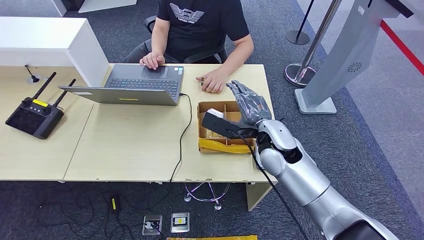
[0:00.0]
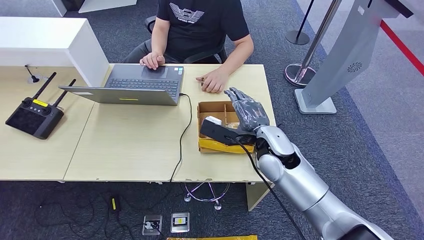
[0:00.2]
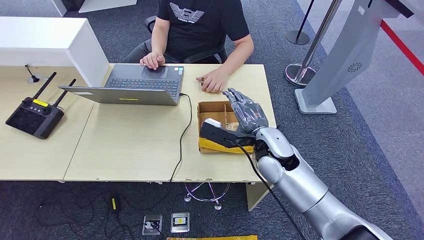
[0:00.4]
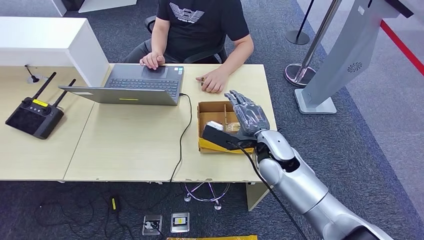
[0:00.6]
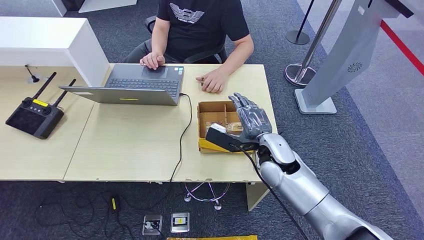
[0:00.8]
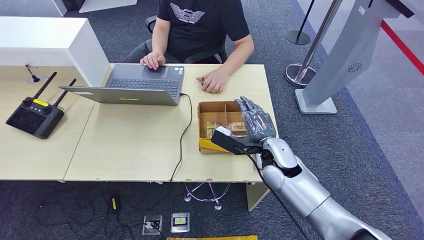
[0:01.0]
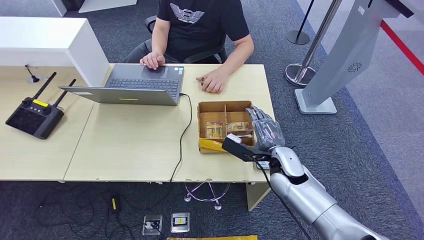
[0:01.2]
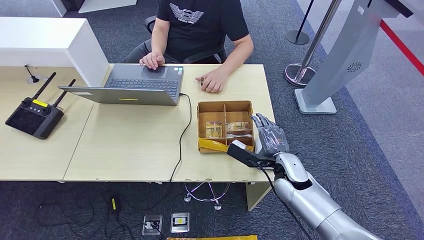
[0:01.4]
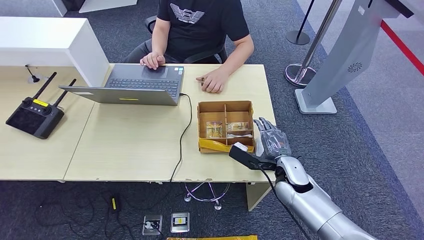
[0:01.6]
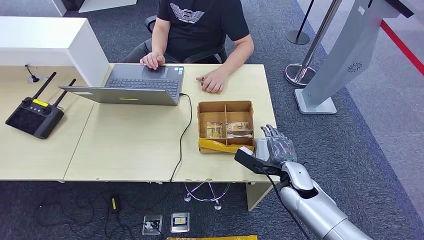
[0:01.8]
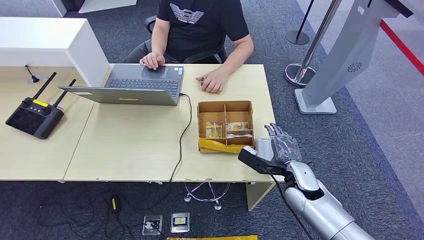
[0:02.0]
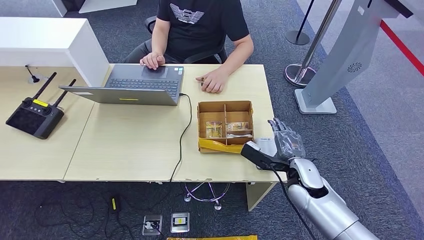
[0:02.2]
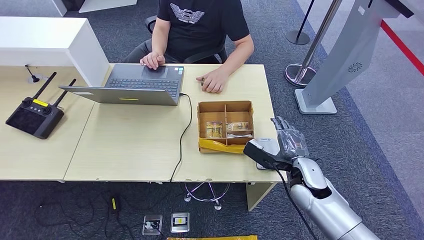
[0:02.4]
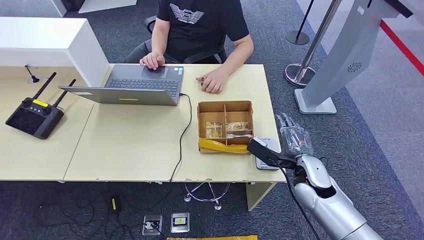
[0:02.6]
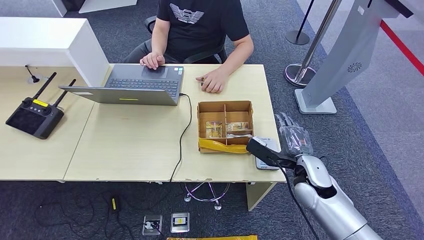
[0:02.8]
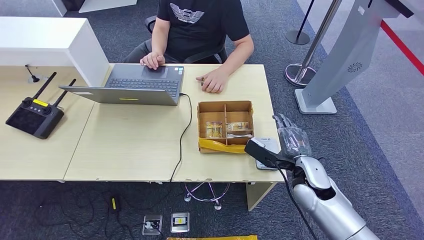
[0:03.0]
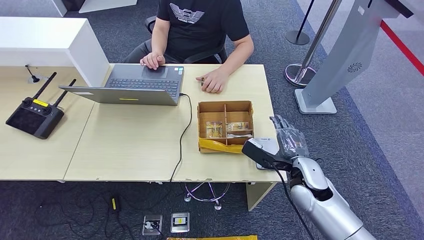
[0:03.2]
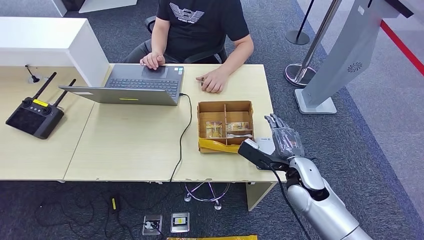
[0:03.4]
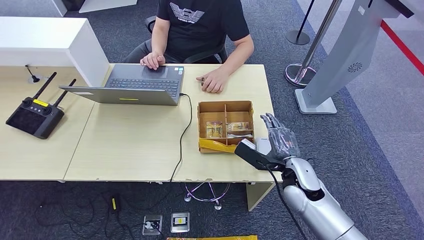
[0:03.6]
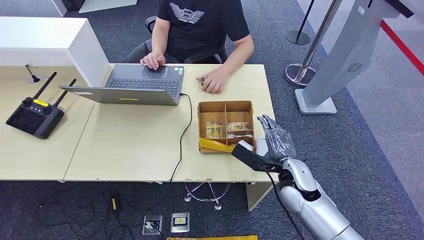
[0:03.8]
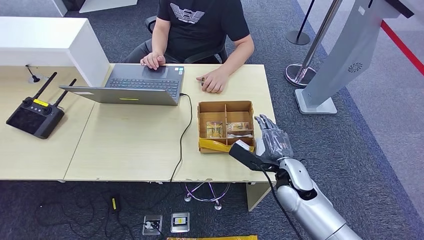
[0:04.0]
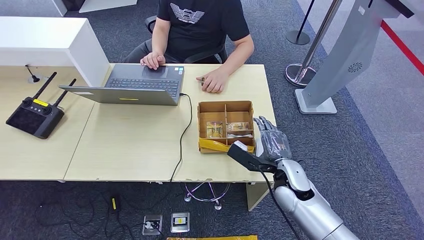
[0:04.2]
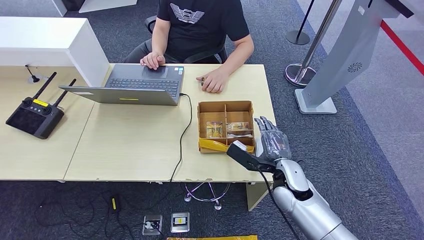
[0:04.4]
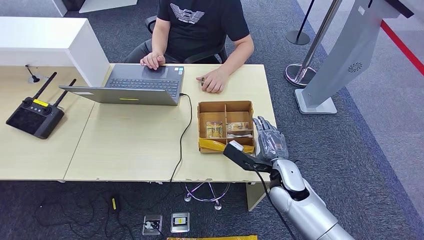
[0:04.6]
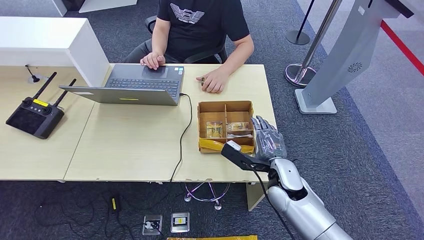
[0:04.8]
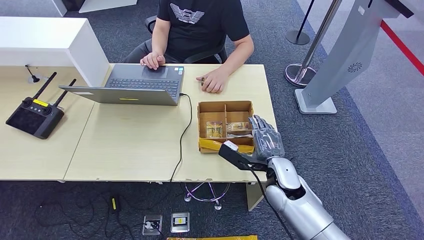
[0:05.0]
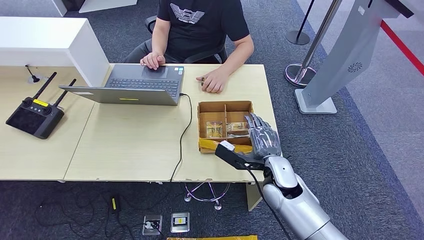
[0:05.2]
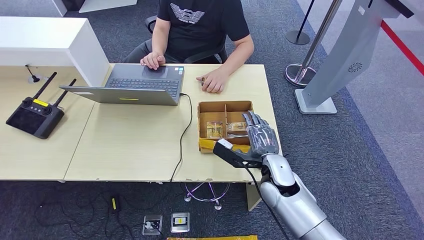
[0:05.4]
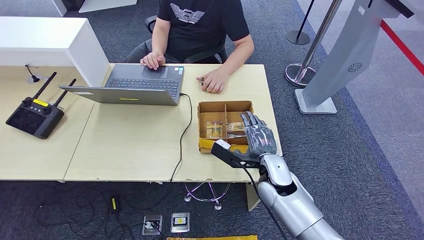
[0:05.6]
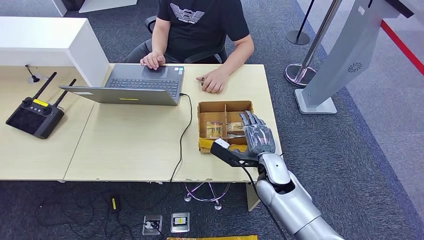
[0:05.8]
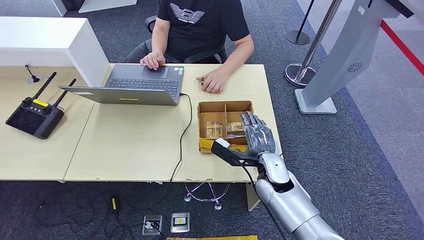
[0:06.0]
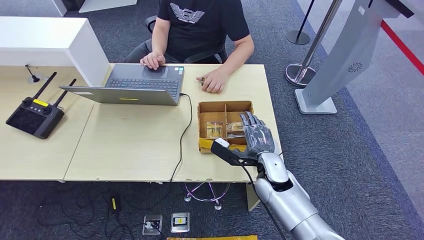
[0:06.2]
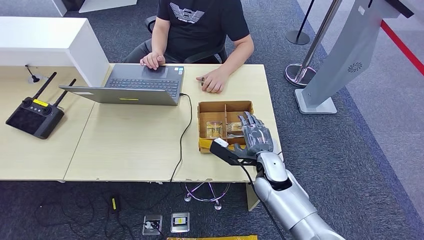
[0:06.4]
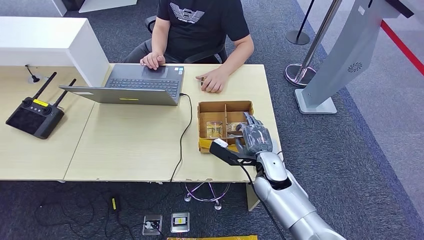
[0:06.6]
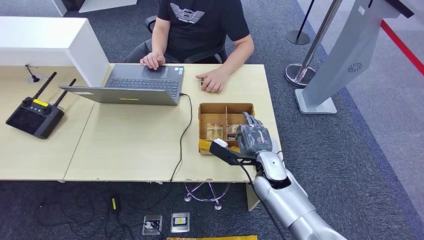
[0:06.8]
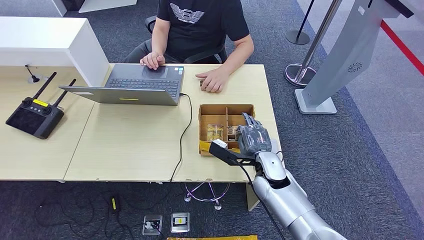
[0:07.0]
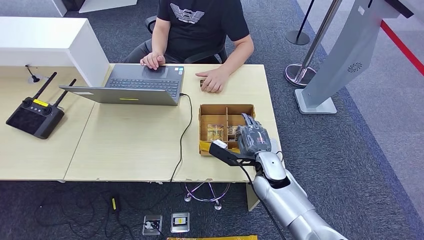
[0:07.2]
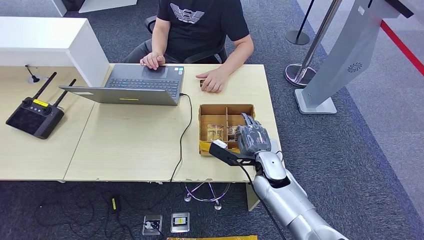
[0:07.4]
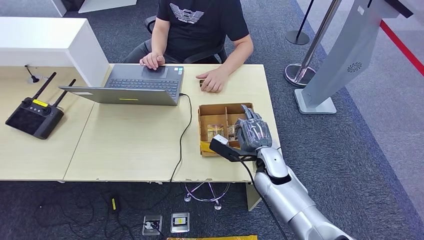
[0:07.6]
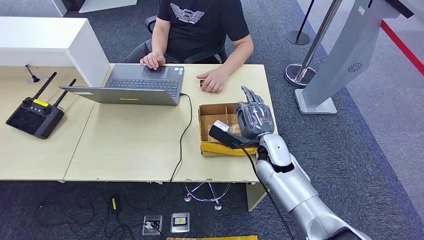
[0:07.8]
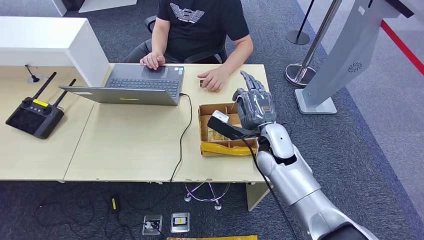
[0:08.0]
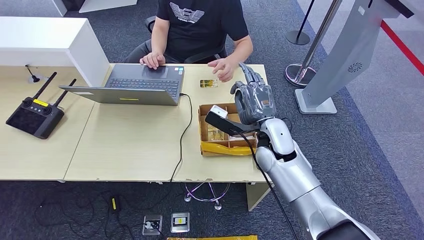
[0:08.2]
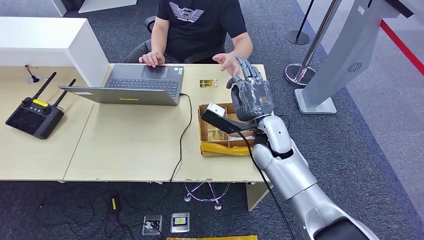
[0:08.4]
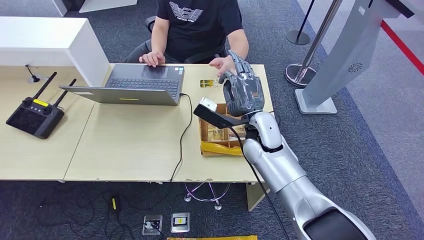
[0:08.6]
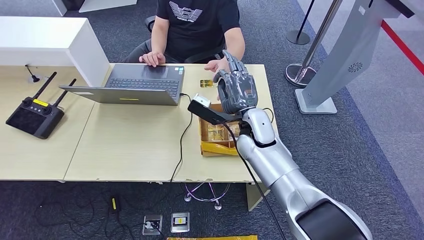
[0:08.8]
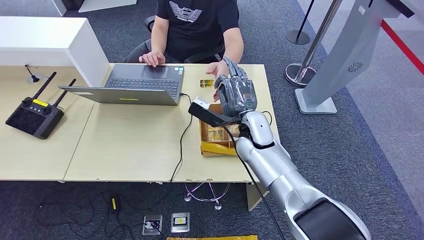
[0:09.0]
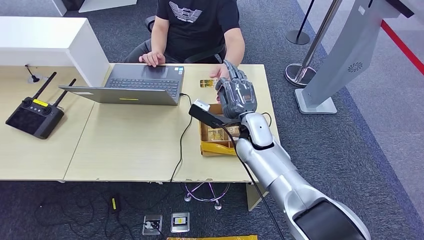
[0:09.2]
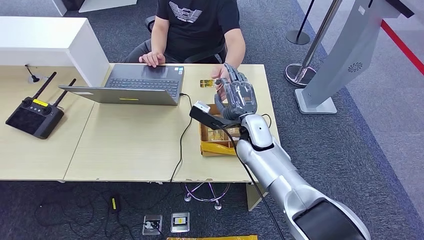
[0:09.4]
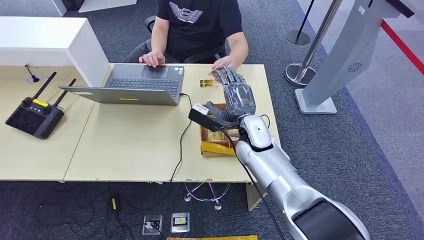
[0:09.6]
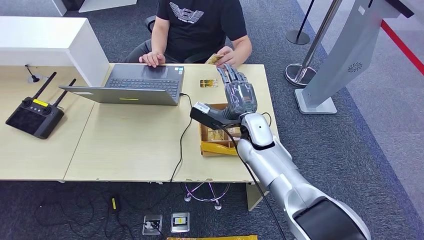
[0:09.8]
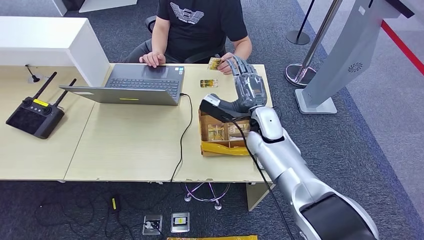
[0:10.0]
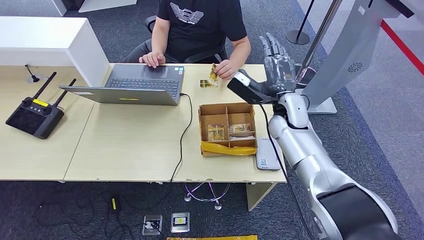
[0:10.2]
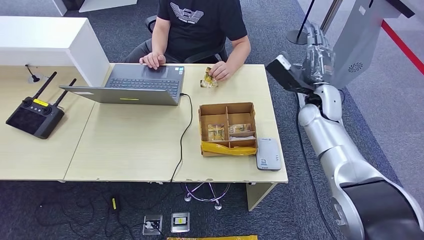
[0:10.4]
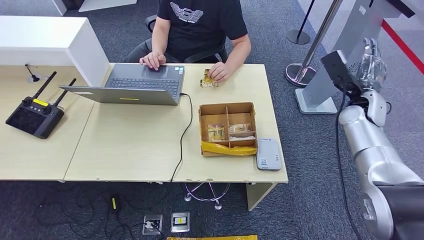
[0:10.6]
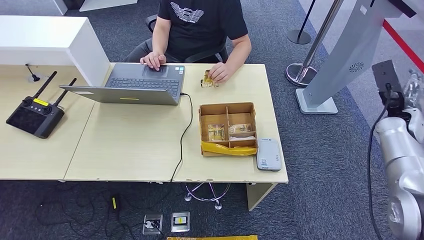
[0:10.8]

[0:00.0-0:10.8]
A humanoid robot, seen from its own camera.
Step, 0:00.0 to 0:08.0: Pick up the room key from the key card box.
Step, 0:08.4 to 0:10.8: Hand the room key to the person.
0:00.0 to 0:01.6: The right hand heads downward and to the right, covering some 15 cm.
0:01.6 to 0:03.0: The right hand ends up approximately 5 cm from where it was.
0:03.0 to 0:04.6: The right hand is displaced to the left by some 5 cm.
0:04.6 to 0:06.2: The hands stay close to where they were, moving slightly.
0:06.2 to 0:07.8: The right hand ends up roughly 5 cm from where it was.
0:07.8 to 0:09.2: The right hand moves to the left, about 5 cm.
0:09.2 to 0:10.8: The right hand moves to the right, roughly 35 cm.

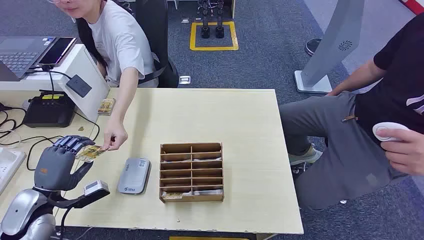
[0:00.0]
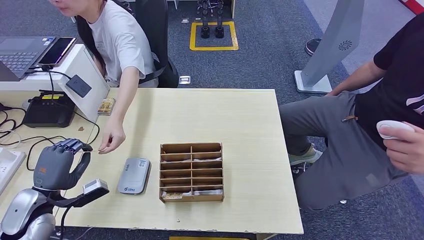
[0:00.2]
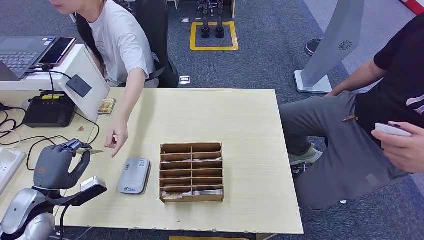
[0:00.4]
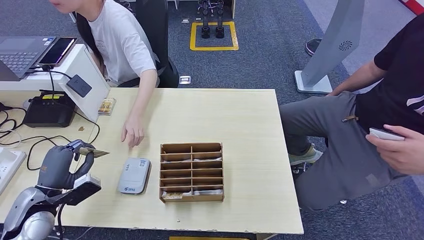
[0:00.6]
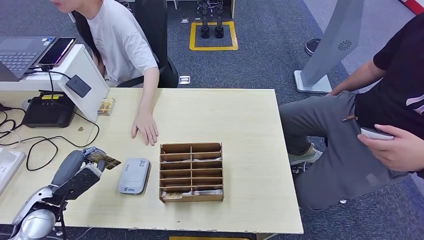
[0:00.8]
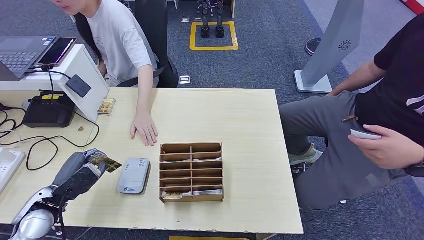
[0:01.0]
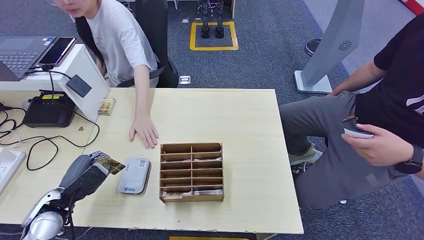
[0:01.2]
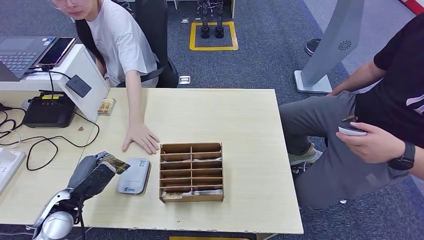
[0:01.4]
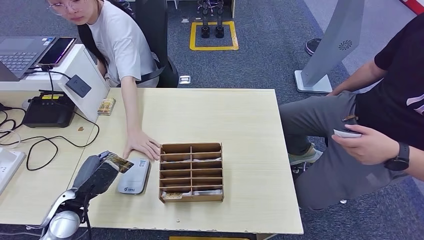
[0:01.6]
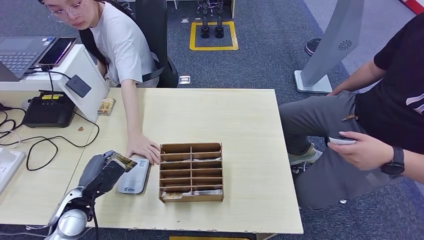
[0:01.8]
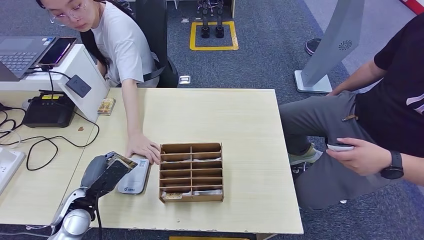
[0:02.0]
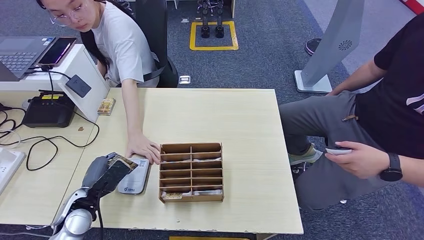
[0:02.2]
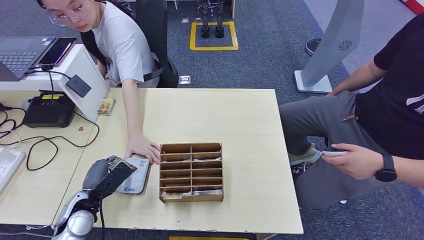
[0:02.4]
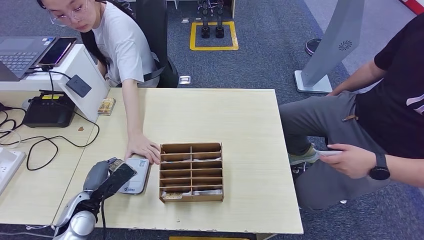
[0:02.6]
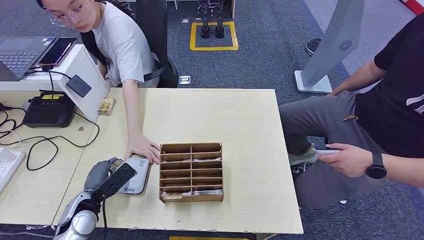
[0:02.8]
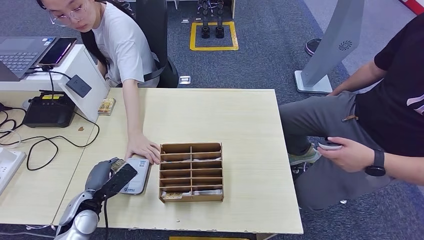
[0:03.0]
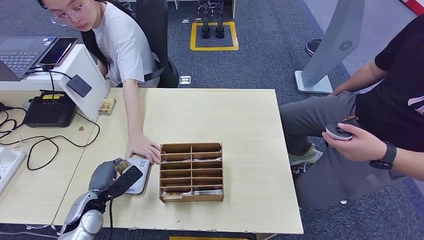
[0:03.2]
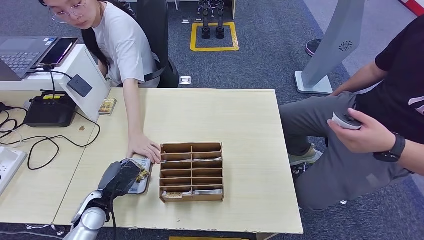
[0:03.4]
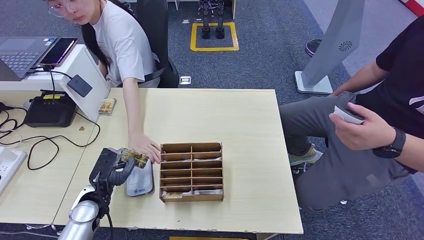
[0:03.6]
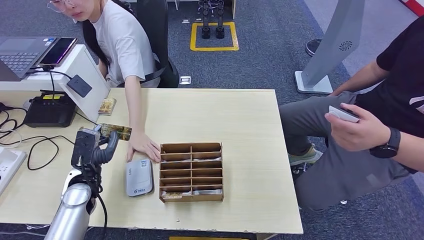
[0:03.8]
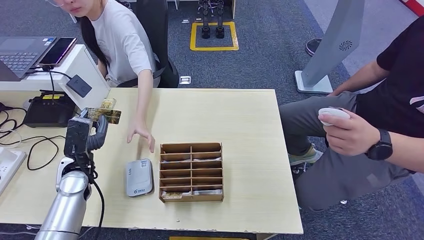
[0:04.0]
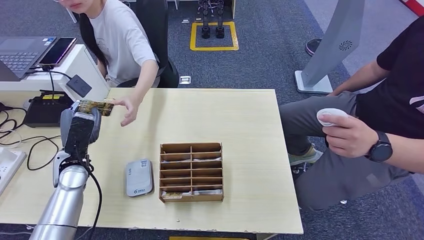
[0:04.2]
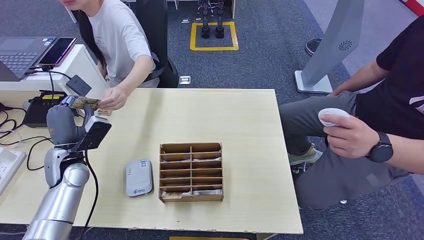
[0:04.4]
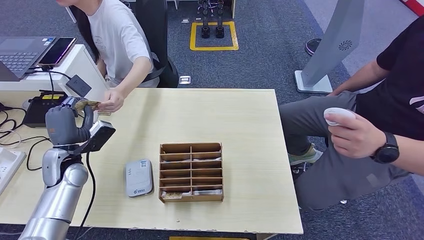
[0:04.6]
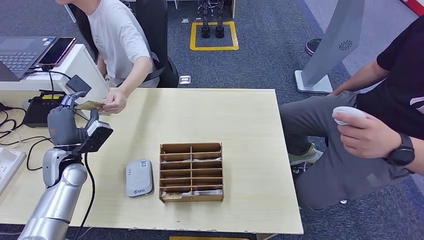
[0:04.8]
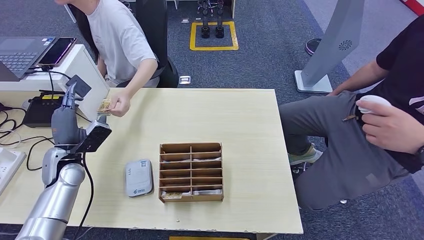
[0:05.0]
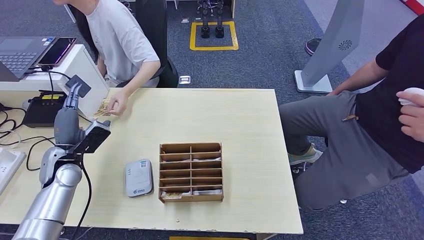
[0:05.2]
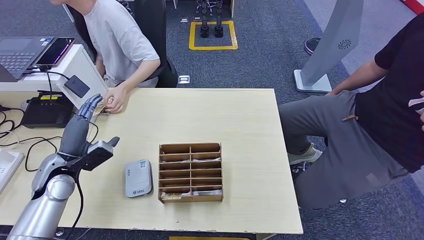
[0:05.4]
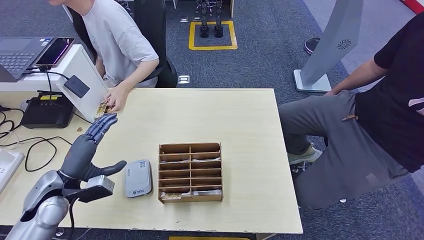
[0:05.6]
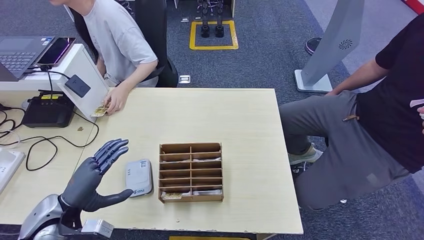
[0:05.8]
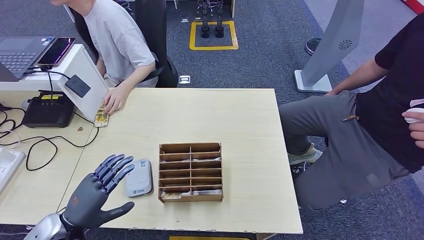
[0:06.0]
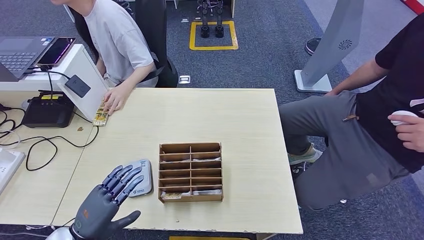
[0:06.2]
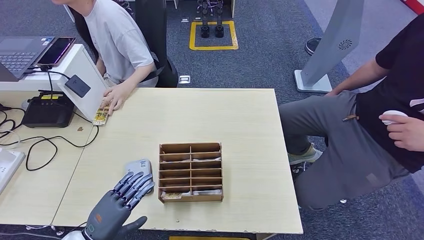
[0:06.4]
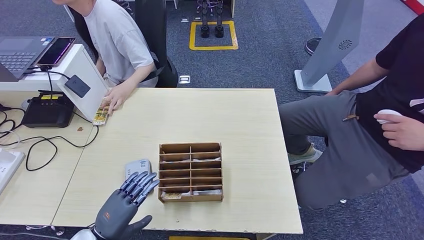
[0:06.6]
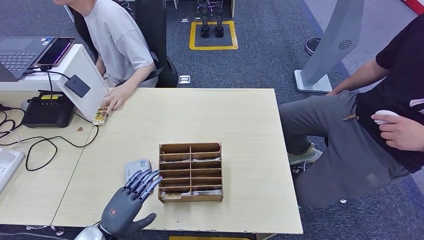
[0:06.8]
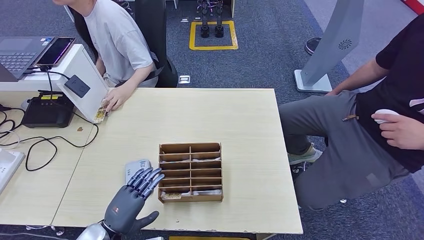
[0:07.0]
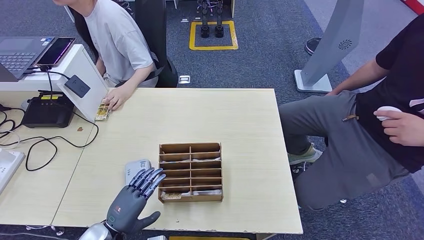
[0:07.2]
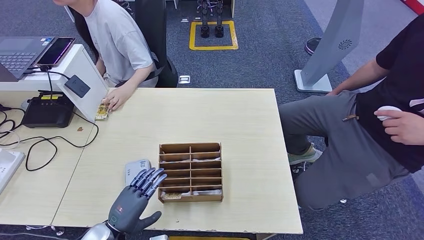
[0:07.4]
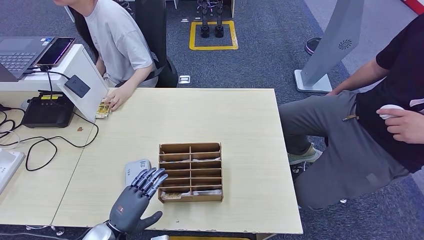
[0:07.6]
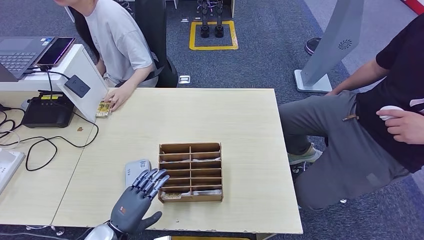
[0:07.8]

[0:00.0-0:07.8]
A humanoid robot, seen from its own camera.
Step, 0:00.0 to 0:01.2: Take the ID card from the person's hand.
Step, 0:01.6 to 0:03.2: Place the ID card on the card reader.
Step, 0:03.4 to 0:05.0: Hand the ID card to the person.
0:01.6 to 0:03.2: The left hand changes place by approximately 5 cm.
0:03.2 to 0:04.6: The left hand shifts roughly 15 cm upward and forward.
0:04.6 to 0:06.2: The left hand travels backward by about 20 cm.
0:06.2 to 0:07.8: The left hand goes some 5 cm to the right.
